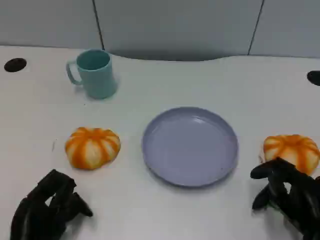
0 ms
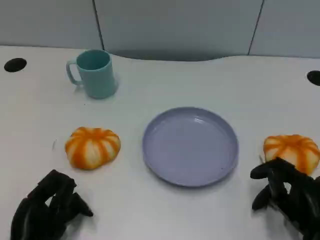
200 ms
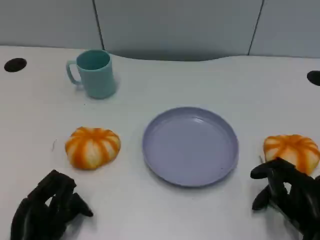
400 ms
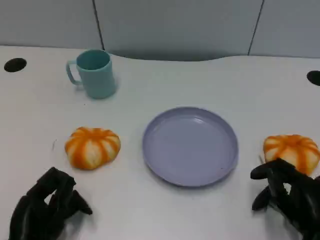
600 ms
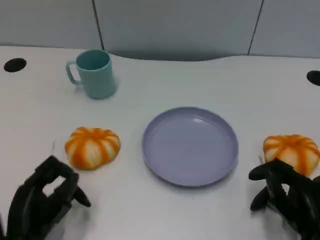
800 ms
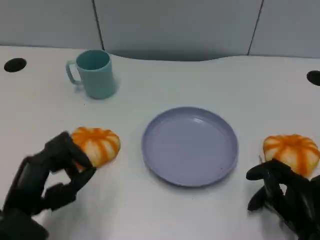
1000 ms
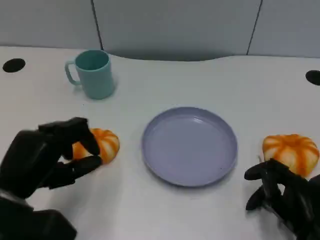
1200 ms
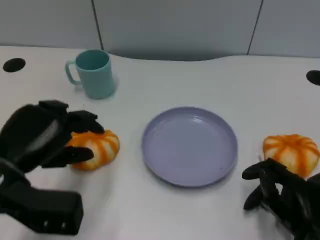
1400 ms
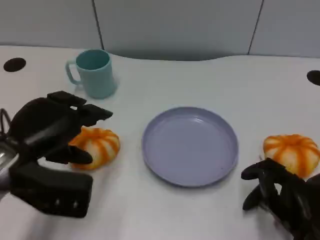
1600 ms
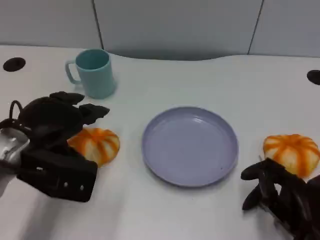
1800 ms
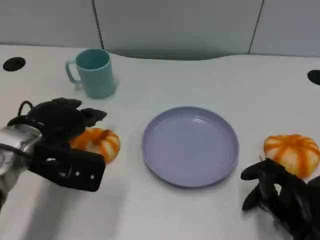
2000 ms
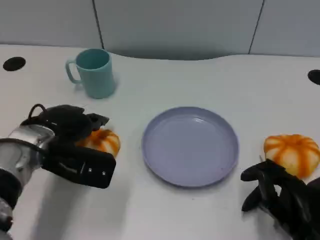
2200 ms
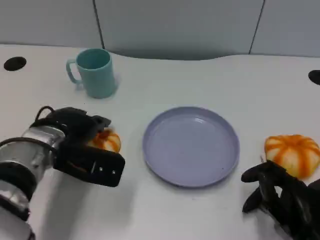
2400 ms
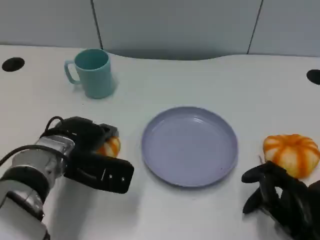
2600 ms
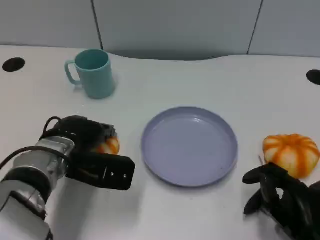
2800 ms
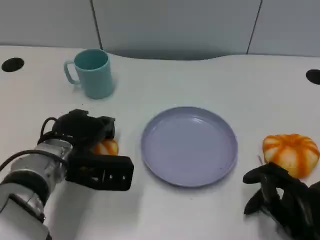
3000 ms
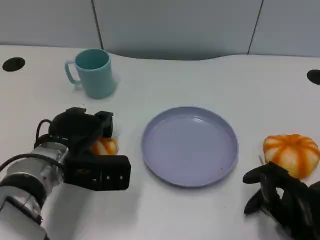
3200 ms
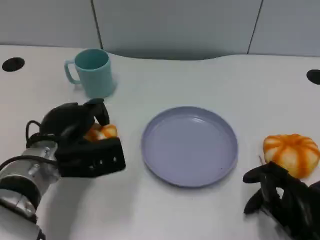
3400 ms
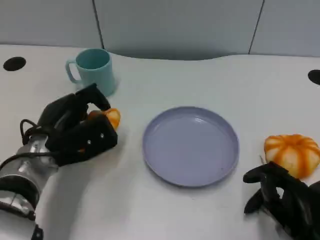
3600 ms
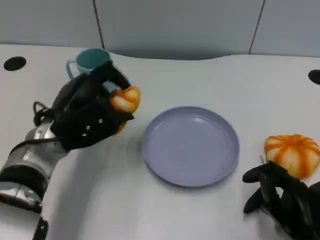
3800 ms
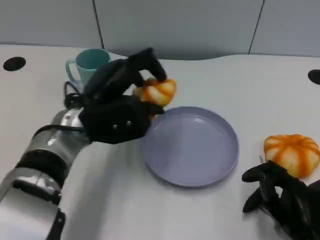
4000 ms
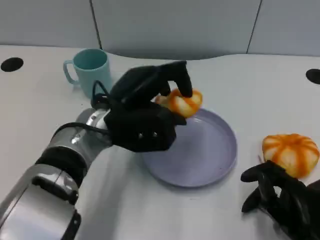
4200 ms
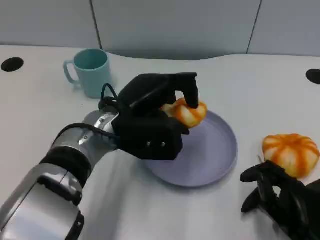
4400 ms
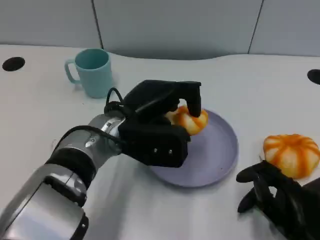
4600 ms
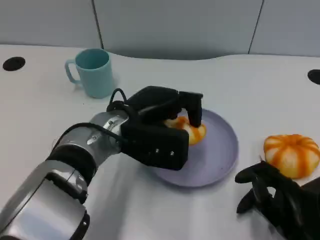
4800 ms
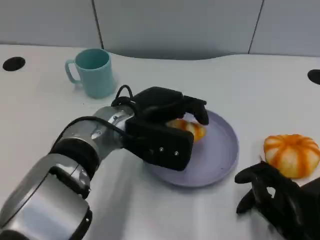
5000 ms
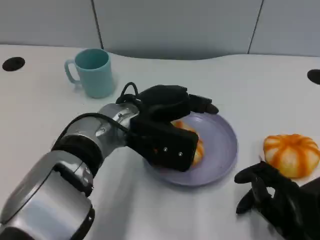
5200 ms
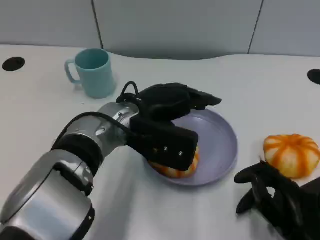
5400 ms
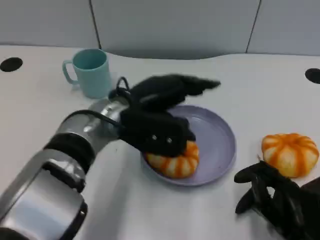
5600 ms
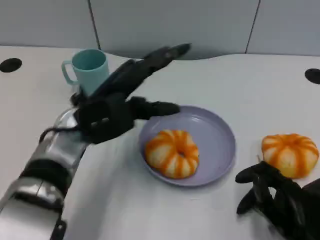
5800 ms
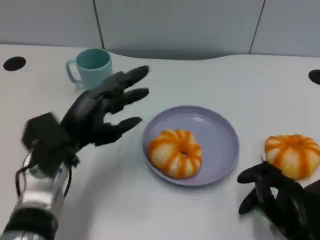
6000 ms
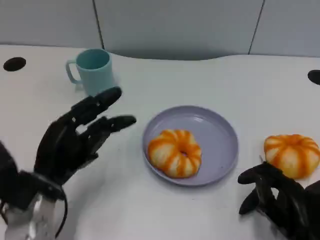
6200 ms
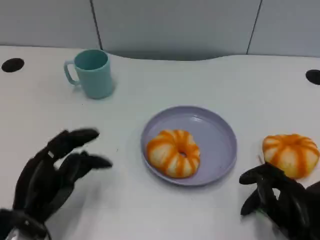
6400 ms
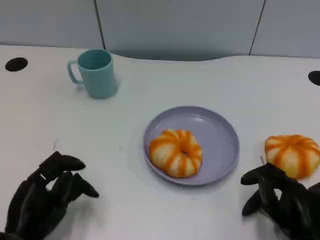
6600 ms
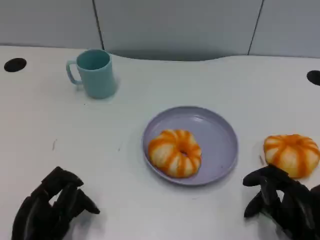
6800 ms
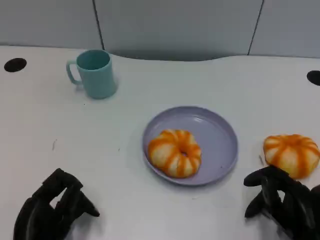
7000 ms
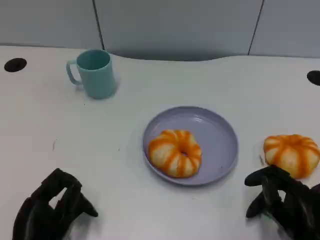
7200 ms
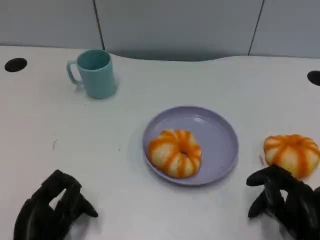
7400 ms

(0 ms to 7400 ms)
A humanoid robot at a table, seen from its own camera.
Task of the whole recording: Grasp the bread from the table and place it into the plate.
0 ms - 1400 ms: The left hand heads upward and forward, covering roughly 15 cm.
1400 ms - 3000 ms: The left hand shifts approximately 10 cm forward, downward and to the right.
3000 ms - 4400 ms: The left hand travels to the right and upward by roughly 10 cm.
4400 ms - 6000 ms: The left hand goes approximately 10 cm to the left.
6000 ms - 7400 ms: The left hand shifts some 15 cm backward and downward.

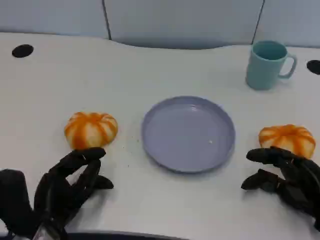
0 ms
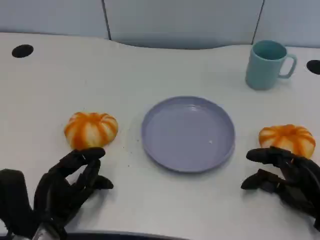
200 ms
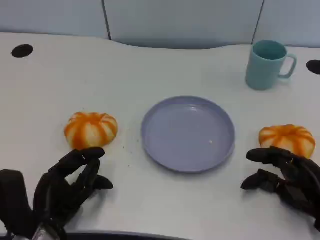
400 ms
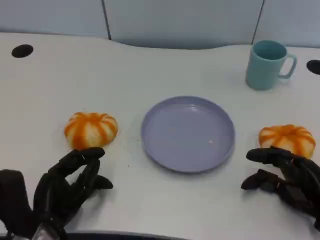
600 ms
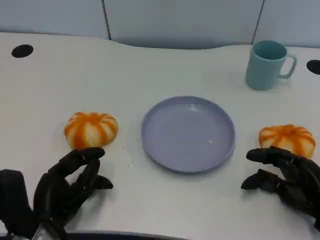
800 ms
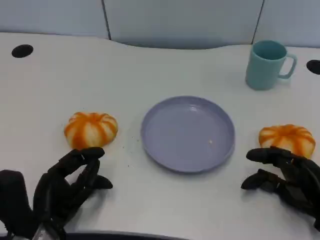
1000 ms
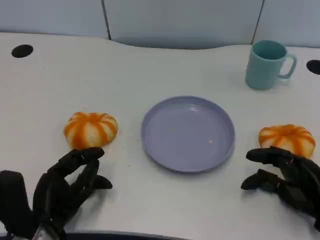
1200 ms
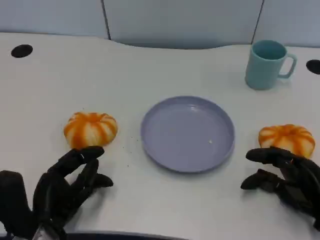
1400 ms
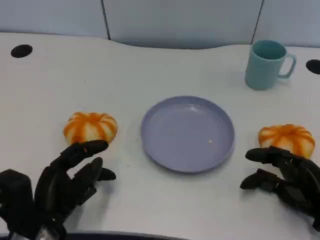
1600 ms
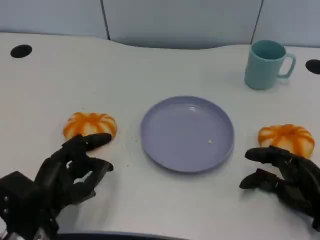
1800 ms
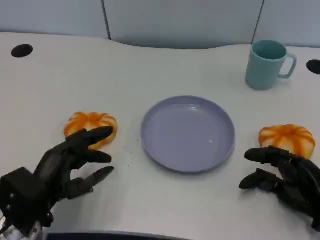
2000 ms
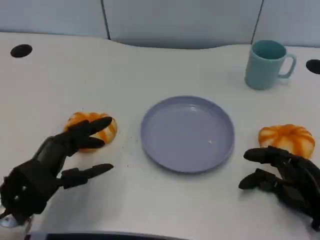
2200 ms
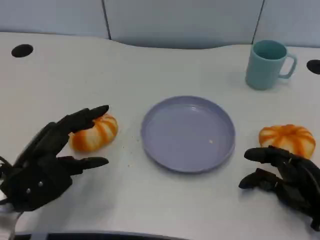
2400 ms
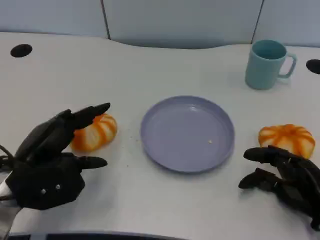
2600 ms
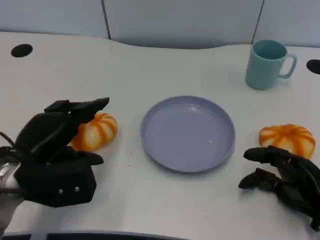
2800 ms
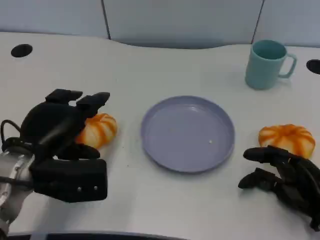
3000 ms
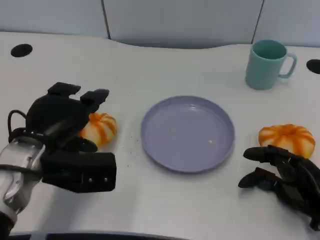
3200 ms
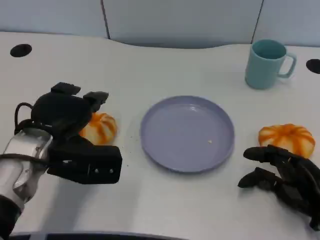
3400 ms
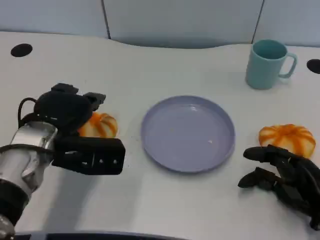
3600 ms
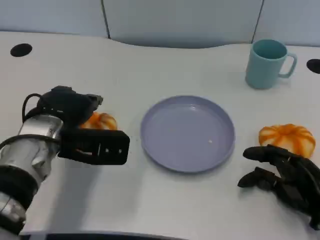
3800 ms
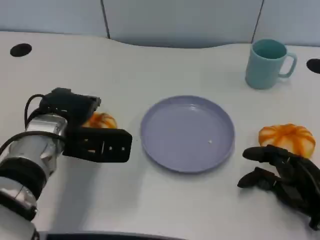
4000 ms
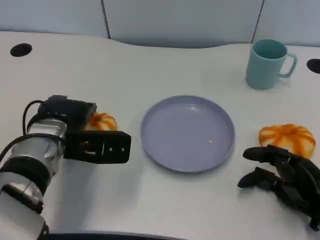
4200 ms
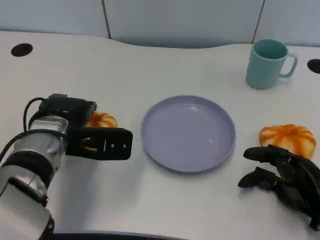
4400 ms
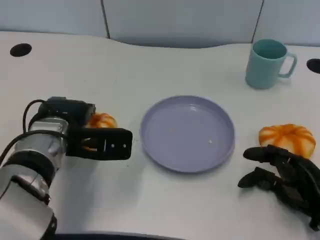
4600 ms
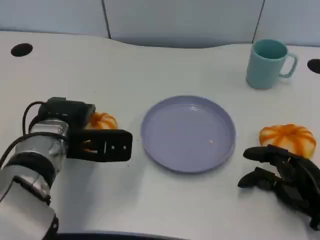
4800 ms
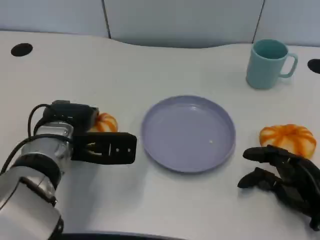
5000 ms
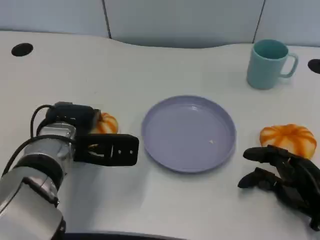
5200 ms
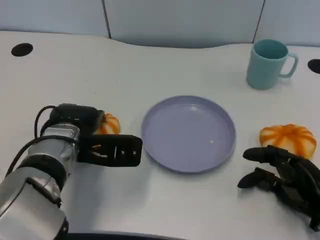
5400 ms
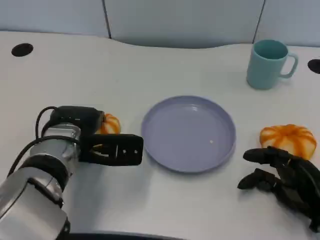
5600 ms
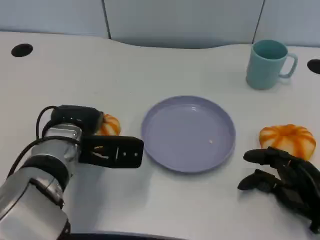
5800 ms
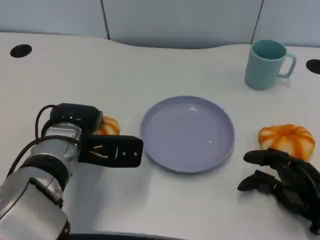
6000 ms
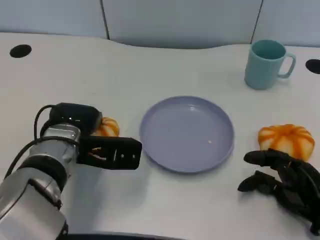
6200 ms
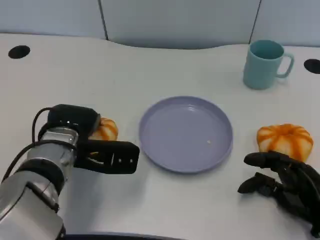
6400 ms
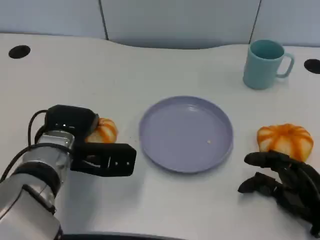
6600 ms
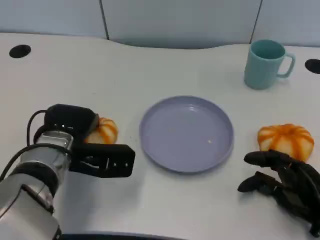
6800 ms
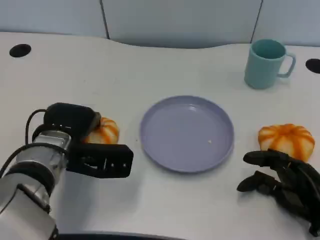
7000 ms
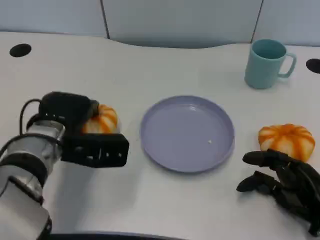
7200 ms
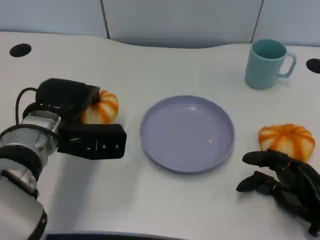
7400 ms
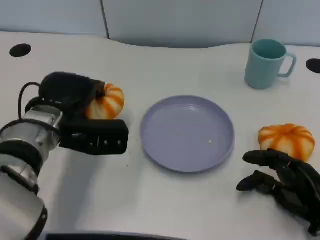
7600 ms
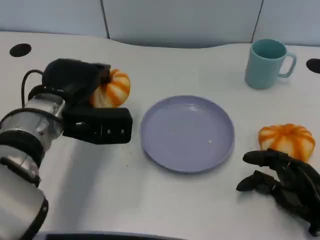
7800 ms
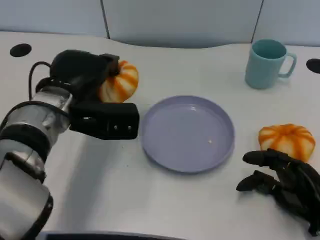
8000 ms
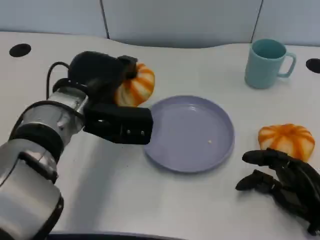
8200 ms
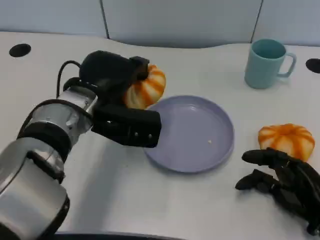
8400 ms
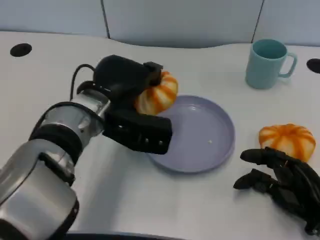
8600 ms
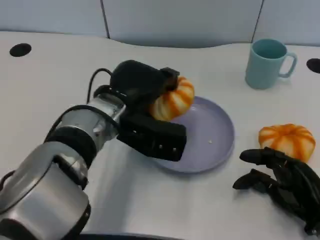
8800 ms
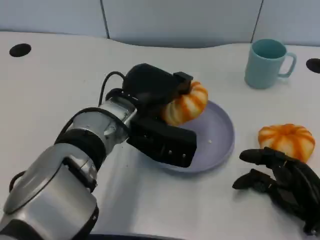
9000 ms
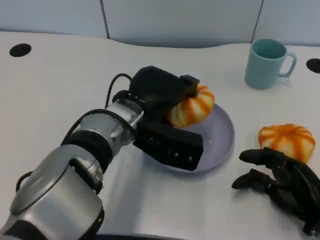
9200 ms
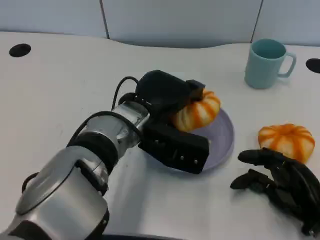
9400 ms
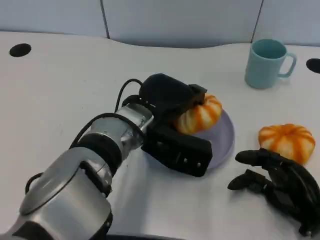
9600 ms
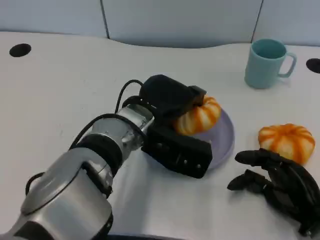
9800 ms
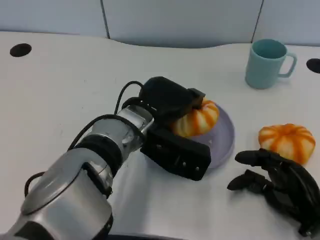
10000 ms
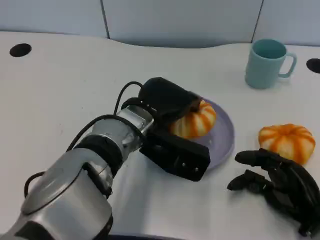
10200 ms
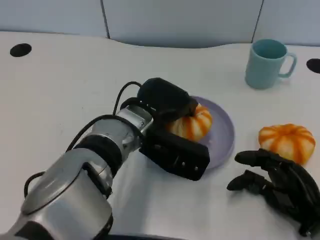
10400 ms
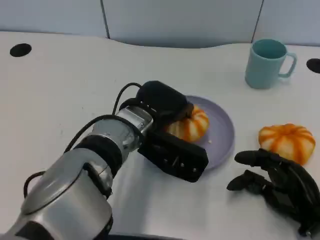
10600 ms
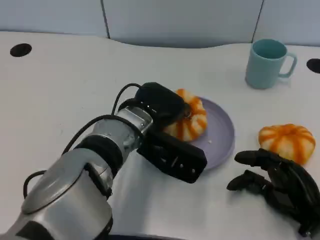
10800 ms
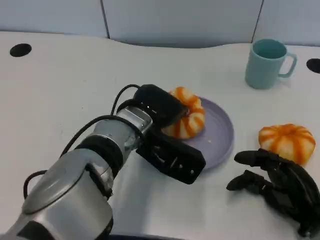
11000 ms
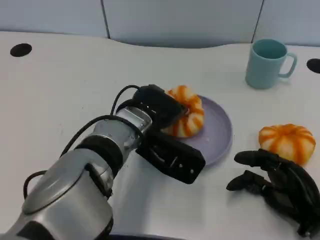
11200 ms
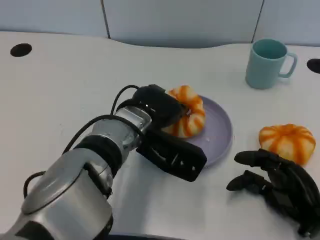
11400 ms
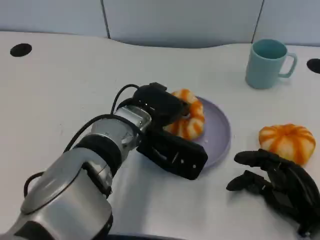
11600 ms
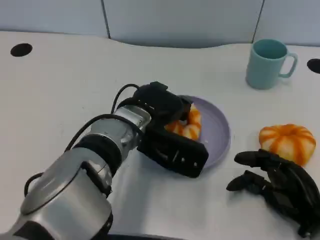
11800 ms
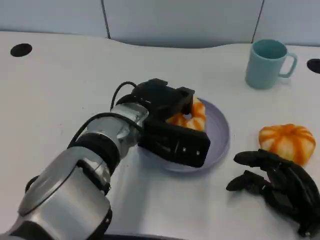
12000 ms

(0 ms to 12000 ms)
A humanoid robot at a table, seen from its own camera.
Task of the whole recording: Grasp the bread from the table and place it into the plate.
0 ms - 1600 ms: The hands stay close to where they were, moving slightly.
1600 ms - 3000 ms: The left hand heads upward and forward, covering about 10 cm.
3000 ms - 4400 ms: The left hand shifts some 5 cm forward.
4400 ms - 6000 ms: The hands make only small movements.
7600 ms - 9000 ms: The left hand shifts some 10 cm to the right.
10400 ms - 12000 ms: The hands make only small movements.

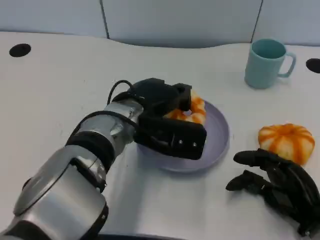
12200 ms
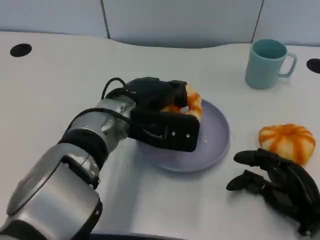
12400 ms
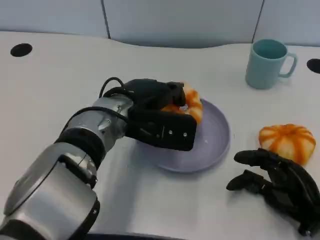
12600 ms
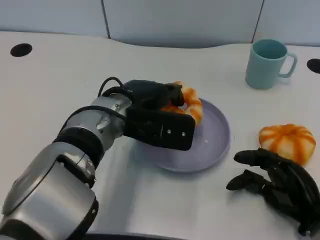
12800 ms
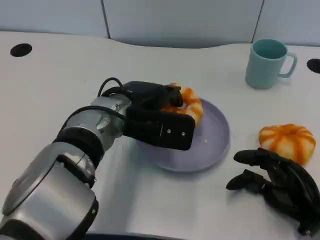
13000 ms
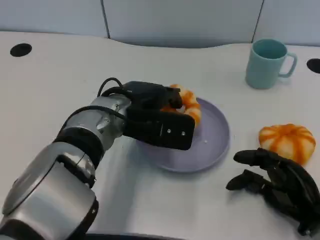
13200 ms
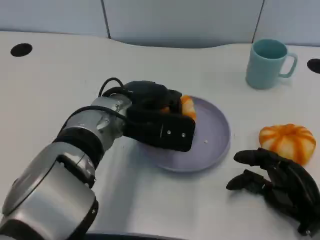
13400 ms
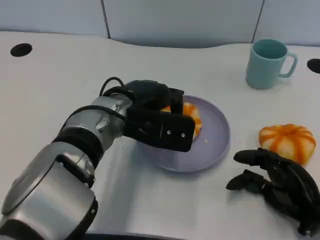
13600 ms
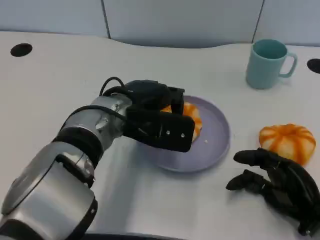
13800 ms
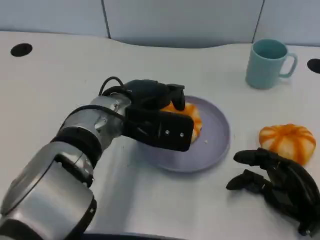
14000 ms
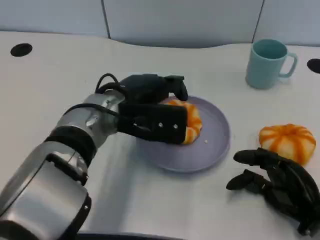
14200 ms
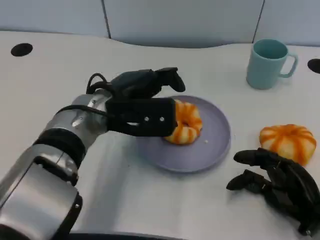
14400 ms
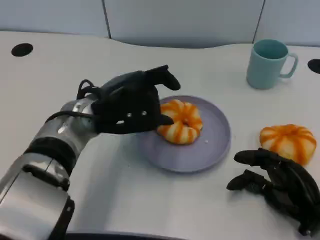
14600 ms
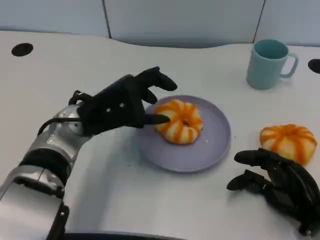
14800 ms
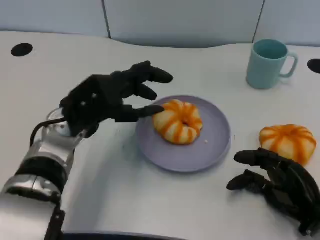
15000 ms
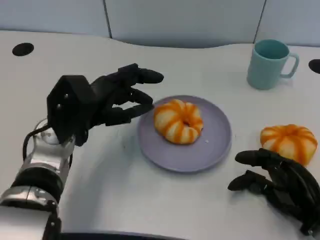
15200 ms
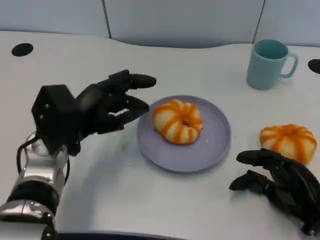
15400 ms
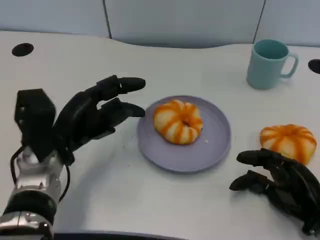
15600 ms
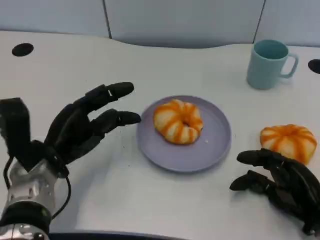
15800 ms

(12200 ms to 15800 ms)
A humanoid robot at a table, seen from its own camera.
Task of the whole recording: Grasp the bread from the table and place it into the plate.
12200 ms - 14000 ms: The hands stay close to where they were, moving slightly.
14000 ms - 15800 ms: The left hand travels to the left and downward by about 15 cm.
